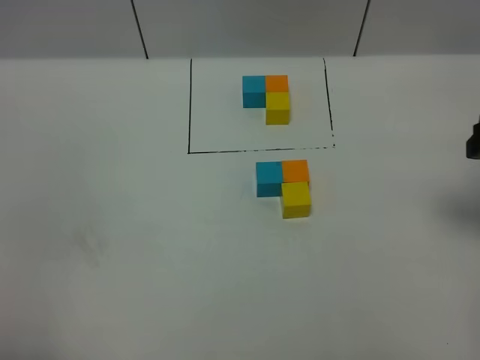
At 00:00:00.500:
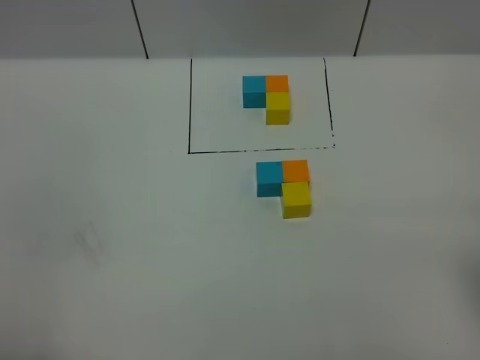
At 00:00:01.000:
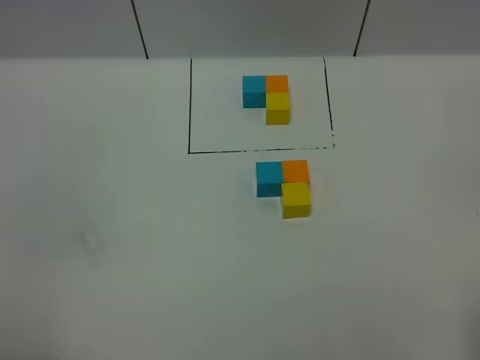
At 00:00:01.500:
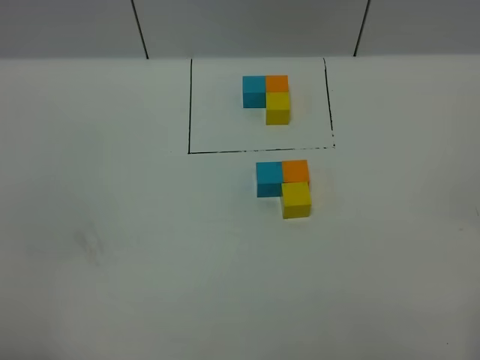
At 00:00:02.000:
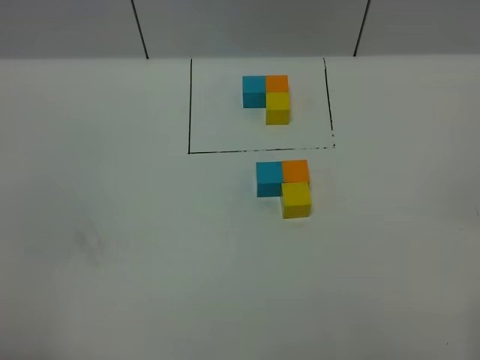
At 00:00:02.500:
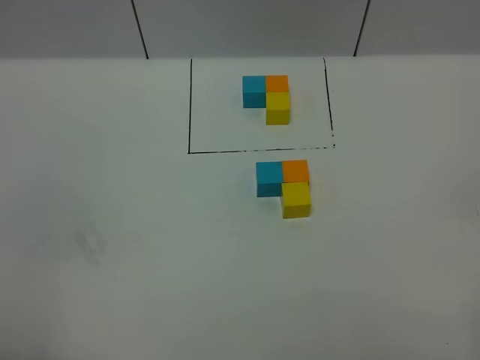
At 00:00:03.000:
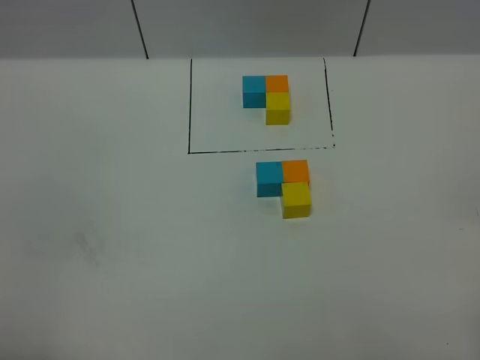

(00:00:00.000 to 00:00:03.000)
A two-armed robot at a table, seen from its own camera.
Task of the whole recording: According to the building block template in front, assemble the scattered blocks together.
00:00:01.500 - 00:00:03.000: Both grippers stay put.

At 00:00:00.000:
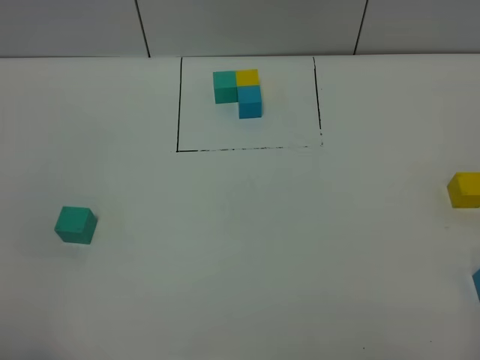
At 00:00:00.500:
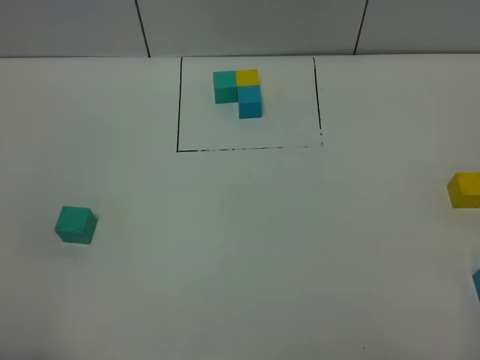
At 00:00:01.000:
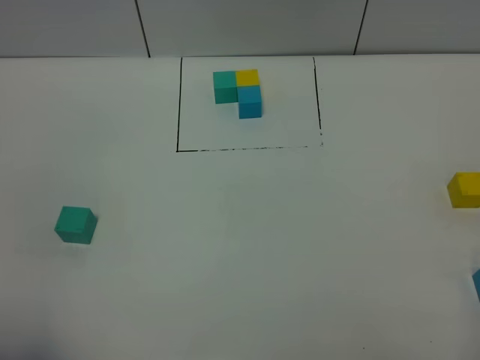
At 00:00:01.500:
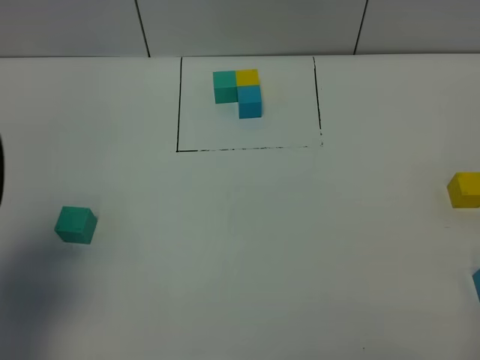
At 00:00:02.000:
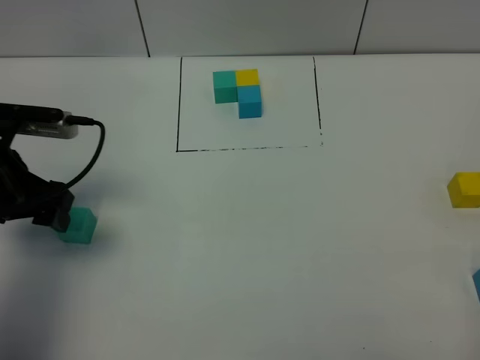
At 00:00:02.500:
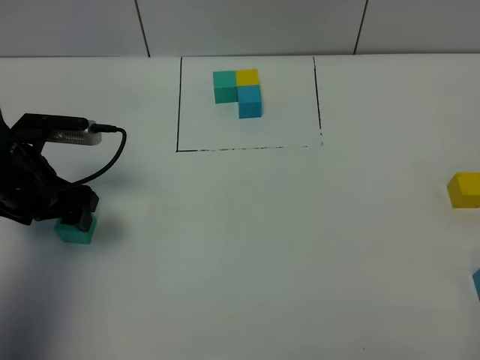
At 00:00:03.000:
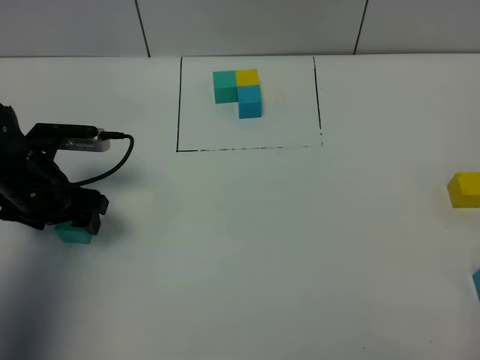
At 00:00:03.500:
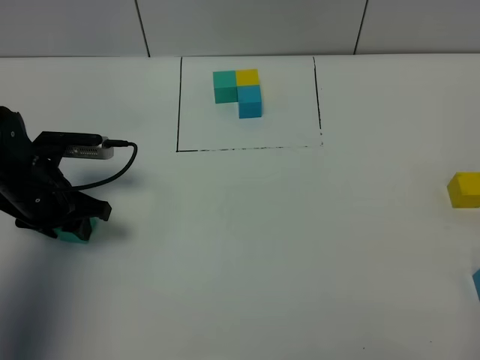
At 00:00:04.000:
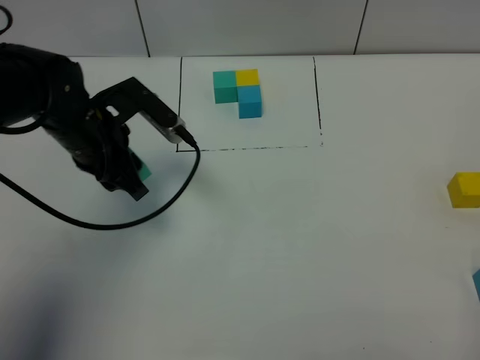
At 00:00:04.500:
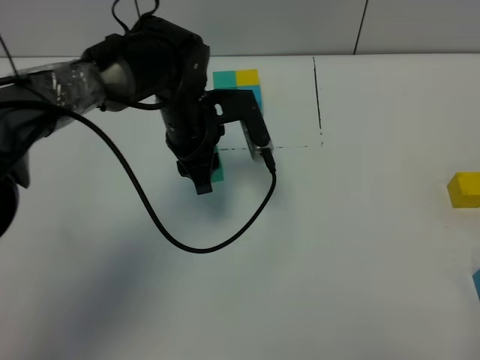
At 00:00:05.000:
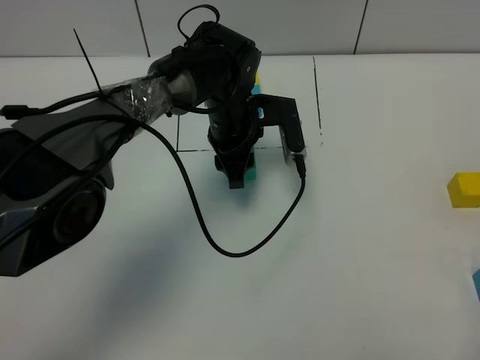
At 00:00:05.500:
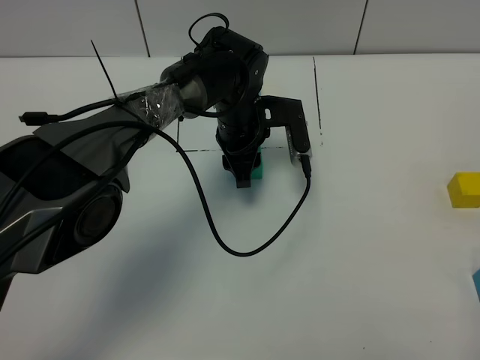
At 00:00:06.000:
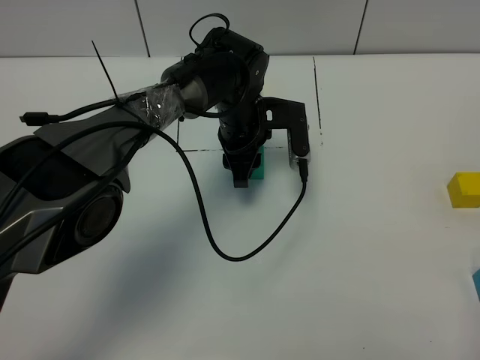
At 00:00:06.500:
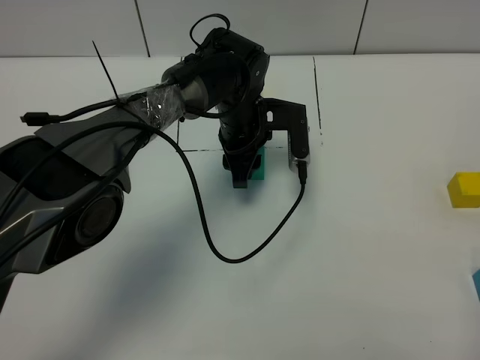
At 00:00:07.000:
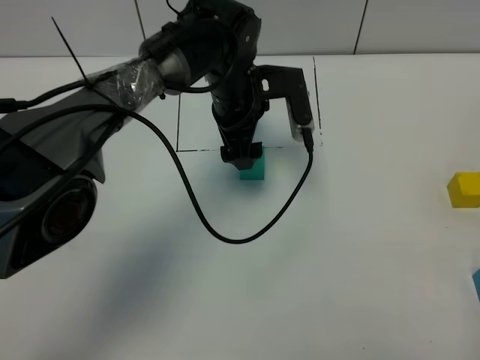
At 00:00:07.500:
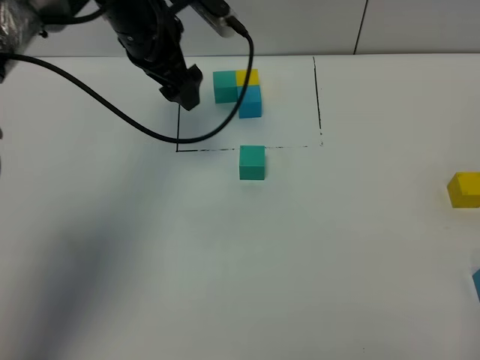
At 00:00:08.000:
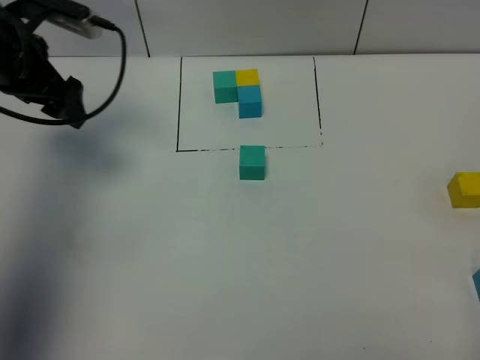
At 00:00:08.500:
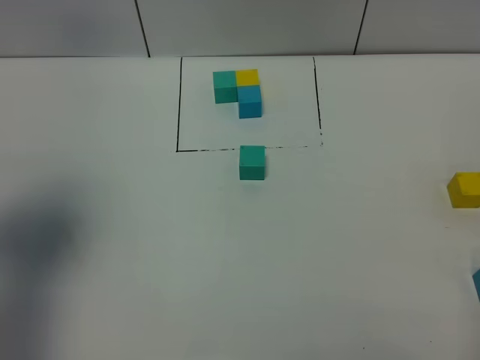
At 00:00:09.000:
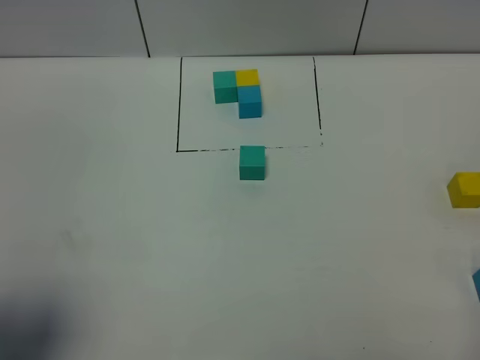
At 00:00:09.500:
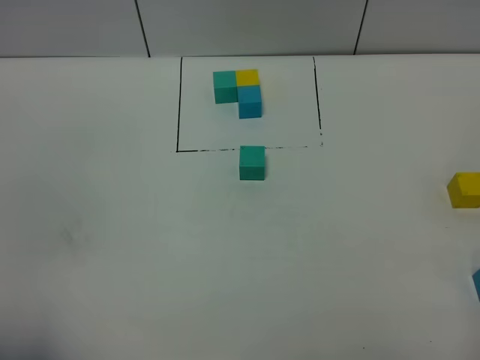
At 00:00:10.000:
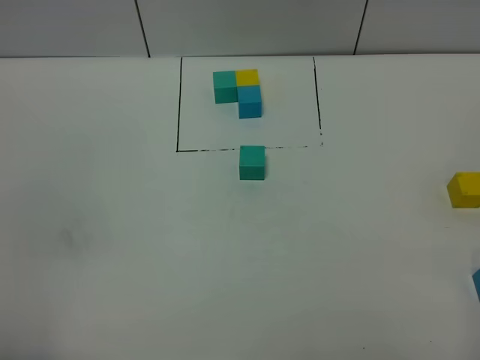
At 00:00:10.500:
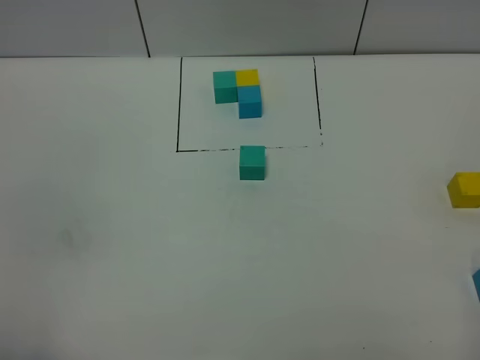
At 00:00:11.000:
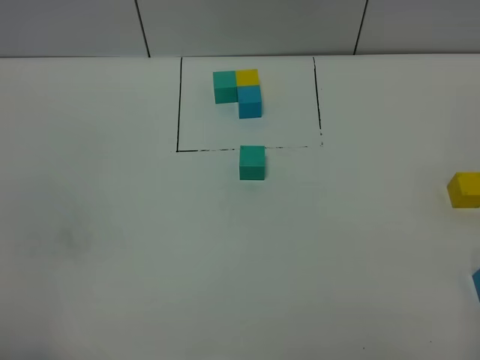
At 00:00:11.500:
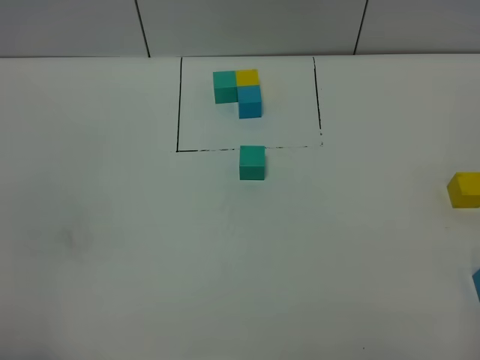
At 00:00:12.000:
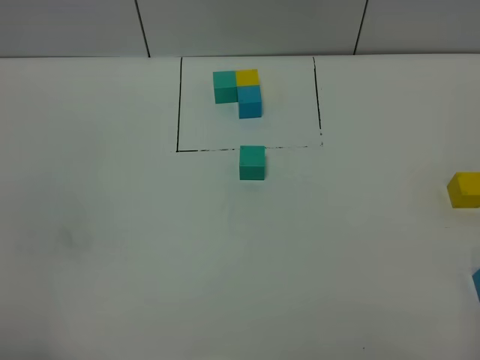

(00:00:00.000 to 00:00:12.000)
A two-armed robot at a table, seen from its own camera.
Task of the whole recording: According to the building block template in front, assemble the scattered blocks together.
Step, 00:00:00.000 - 00:00:06.500: Put the green build block in the center of the table.
00:00:00.000 - 00:00:02.000: The left gripper travels forward by some 30 cm.
00:00:02.000 - 00:00:04.000: The left gripper moves to the right and forward, about 10 cm, and closes up.
00:00:04.000 - 00:00:06.000: The left gripper is displaced to the right and forward by some 20 cm.
00:00:06.000 - 00:00:08.000: The left gripper is displaced to the left and upward by about 30 cm, and opens.
00:00:08.000 - 00:00:10.000: The left gripper travels backward by roughly 40 cm.

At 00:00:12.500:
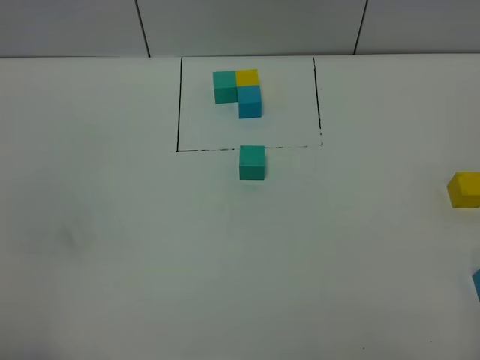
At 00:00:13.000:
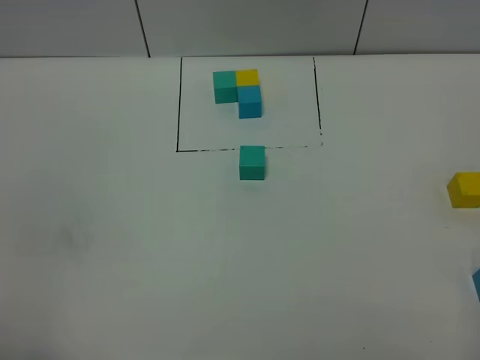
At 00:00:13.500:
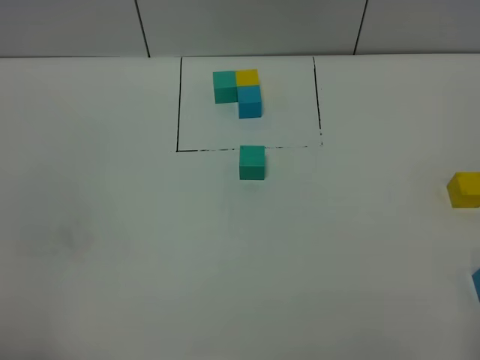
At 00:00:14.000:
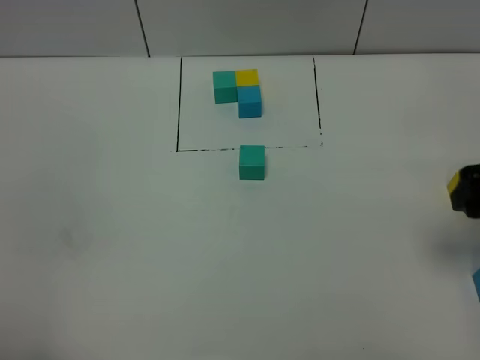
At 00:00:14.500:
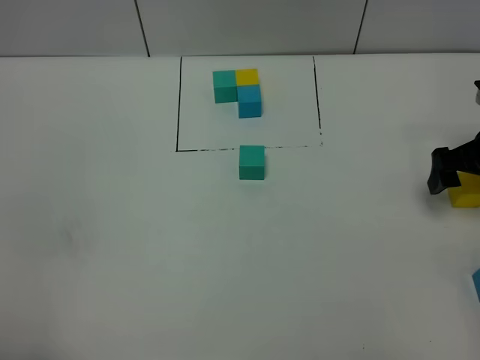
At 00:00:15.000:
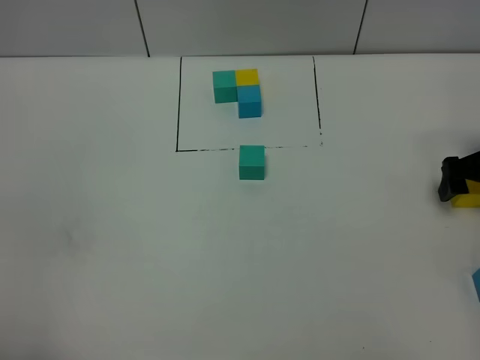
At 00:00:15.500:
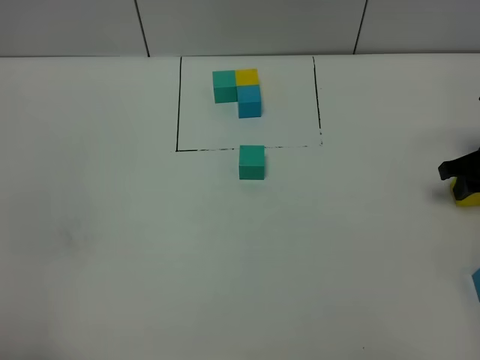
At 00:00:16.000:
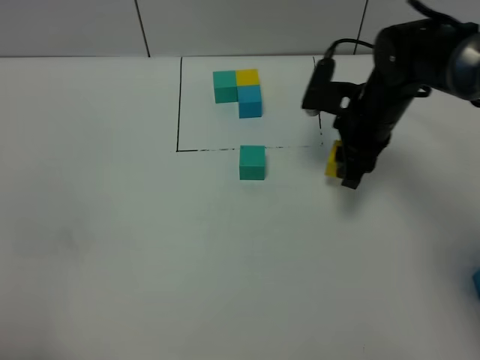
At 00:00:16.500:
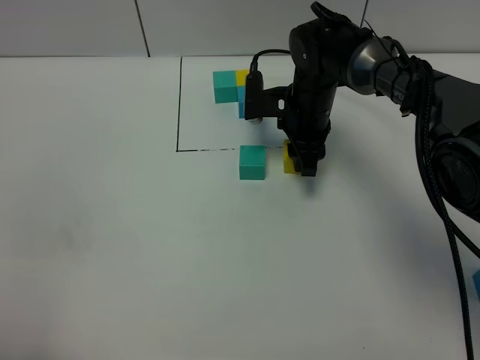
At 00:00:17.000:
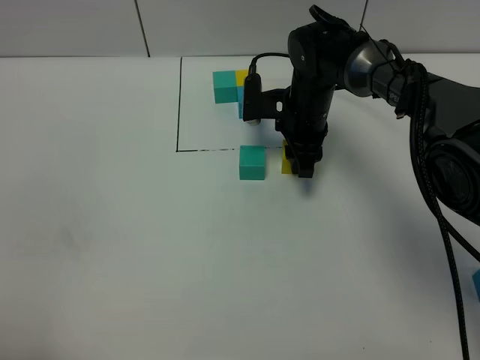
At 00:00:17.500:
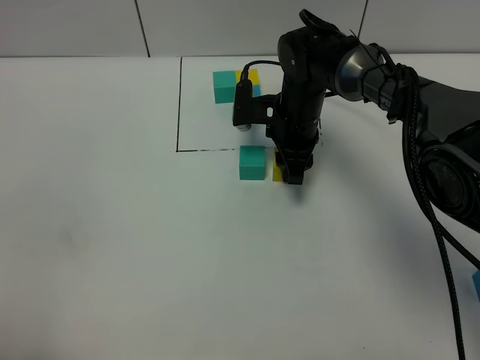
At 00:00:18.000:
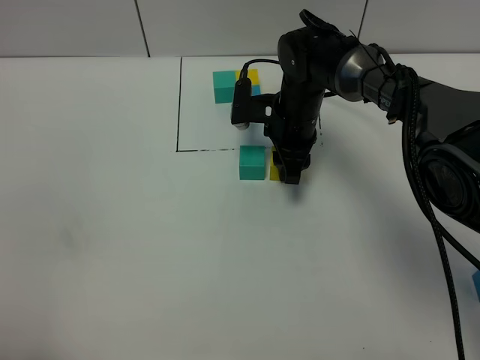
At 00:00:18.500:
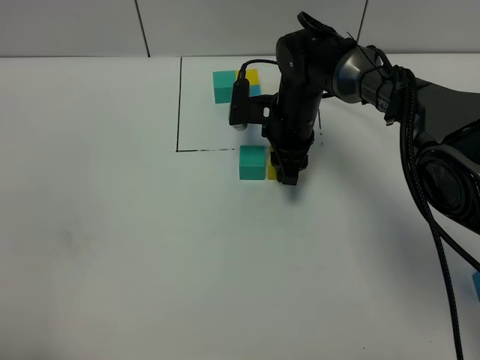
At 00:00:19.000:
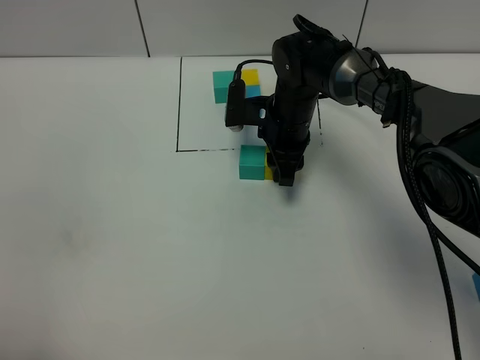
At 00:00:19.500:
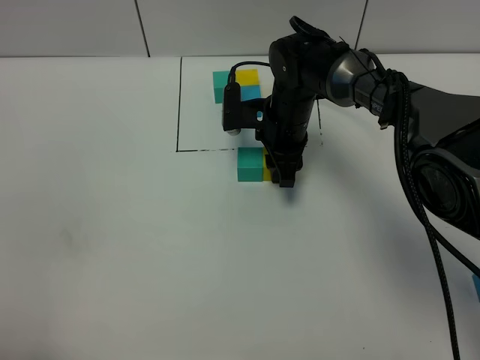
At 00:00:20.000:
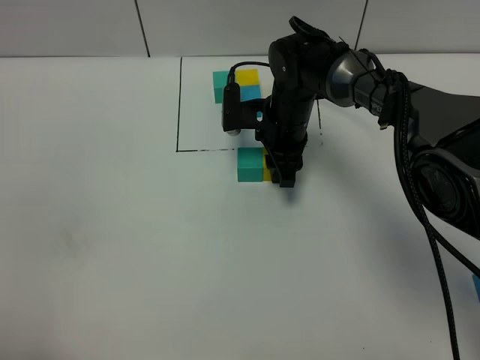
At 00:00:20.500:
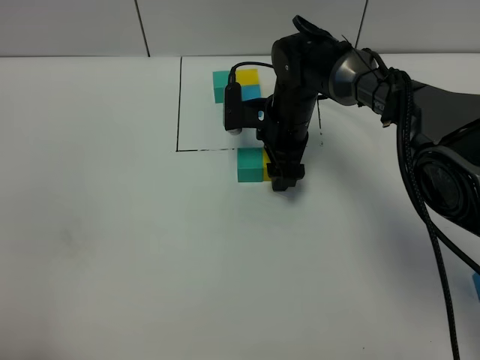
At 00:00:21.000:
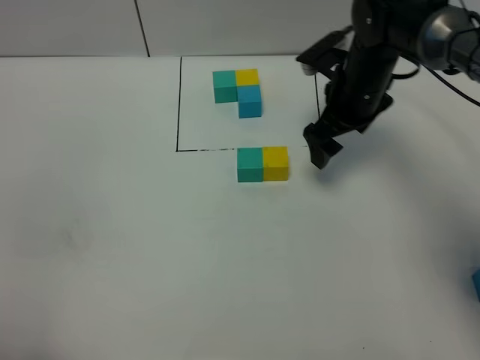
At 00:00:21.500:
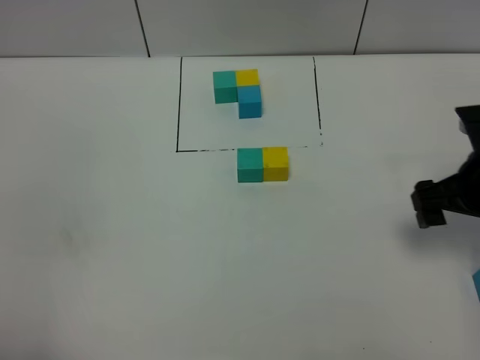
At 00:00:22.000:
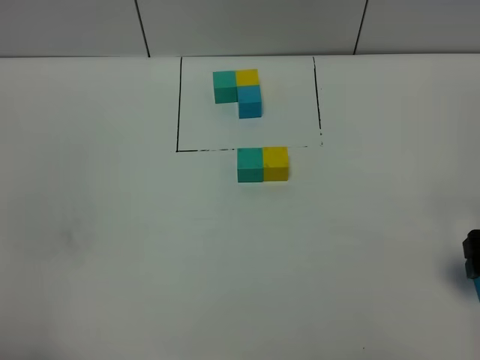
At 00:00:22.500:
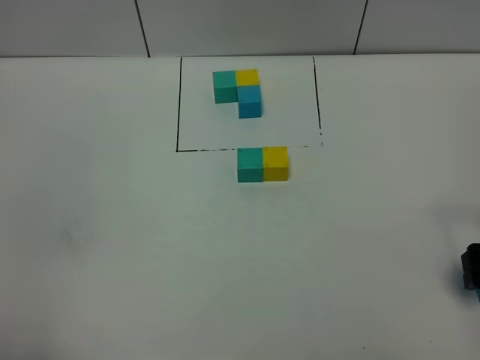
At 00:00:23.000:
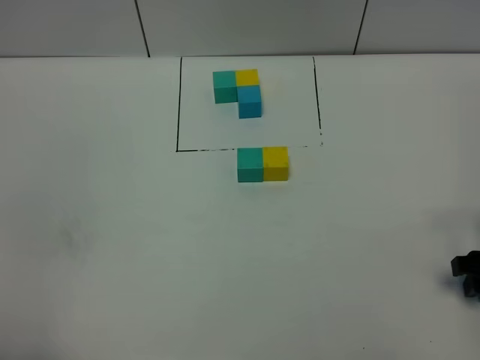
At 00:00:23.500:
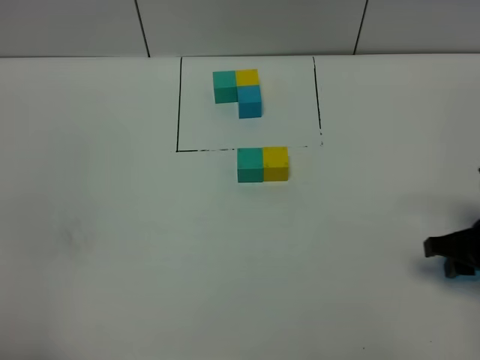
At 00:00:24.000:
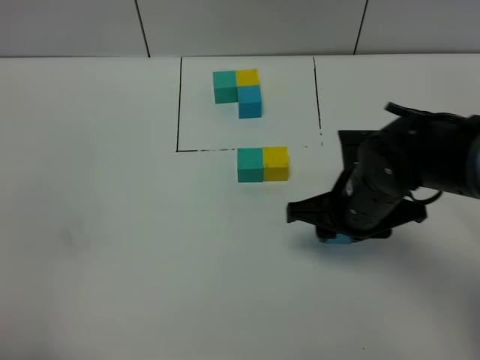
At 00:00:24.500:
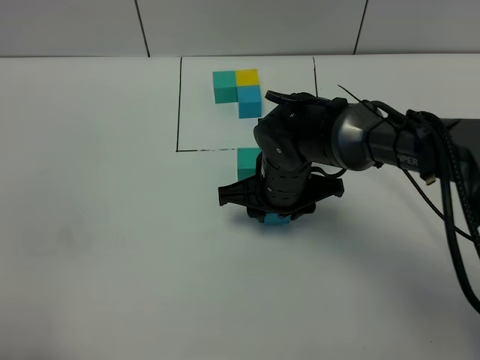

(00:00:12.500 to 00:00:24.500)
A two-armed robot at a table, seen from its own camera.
Task of the whole recording: According to the building block template in front, assemble the scattered blocks together.
Step, 00:00:12.500 - 00:00:20.000: Put the yellow build block on the right of the green build block.
00:00:12.500 - 00:00:14.500: The right gripper moves forward, about 35 cm.
00:00:14.500 - 00:00:16.500: The right gripper goes roughly 25 cm to the left and forward, and closes its fingers.
00:00:16.500 - 00:00:18.500: The grippers make only small movements.
00:00:18.500 - 00:00:20.500: The right gripper opens.
00:00:20.500 - 00:00:22.500: The right gripper heads to the right and backward, covering roughly 35 cm.
00:00:22.500 - 00:00:24.500: The right gripper goes approximately 30 cm to the left and forward, and closes its fingers.
